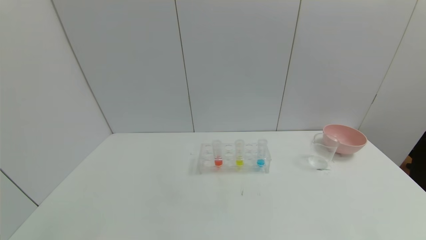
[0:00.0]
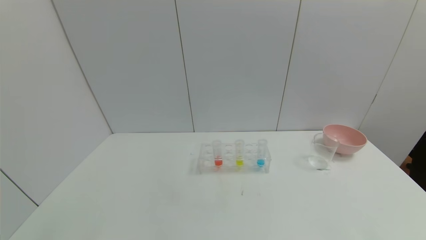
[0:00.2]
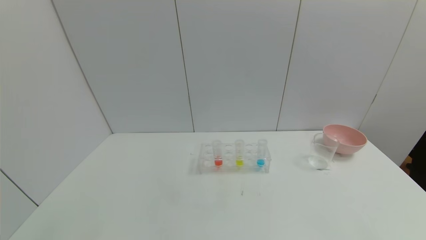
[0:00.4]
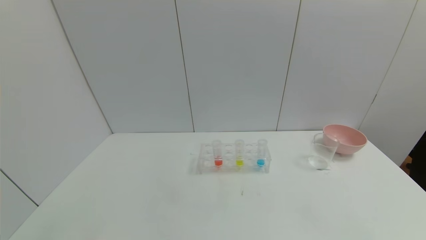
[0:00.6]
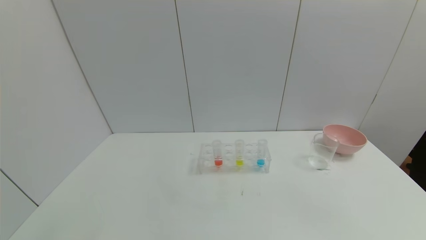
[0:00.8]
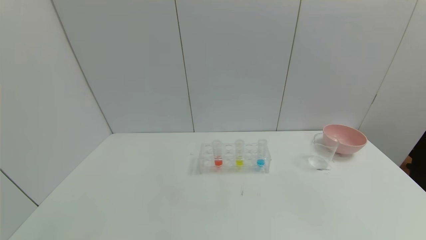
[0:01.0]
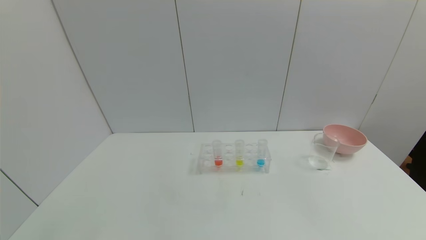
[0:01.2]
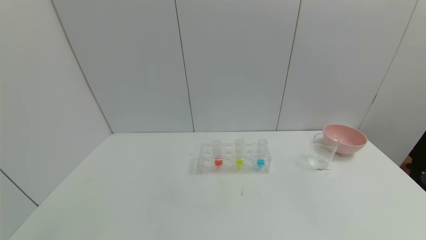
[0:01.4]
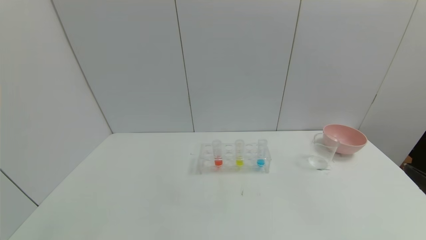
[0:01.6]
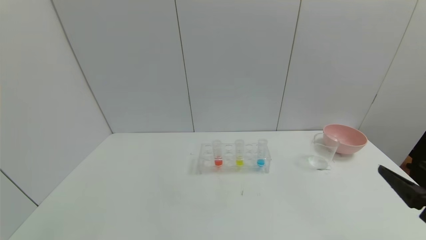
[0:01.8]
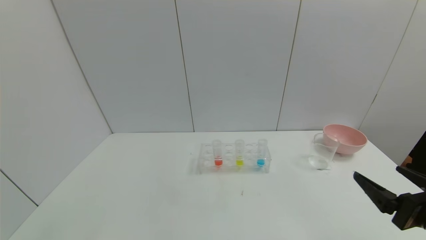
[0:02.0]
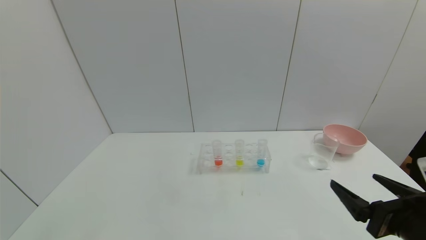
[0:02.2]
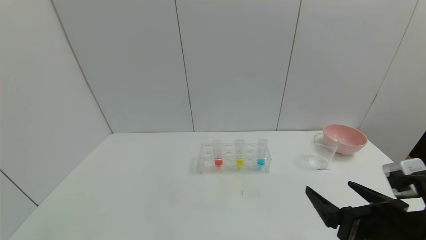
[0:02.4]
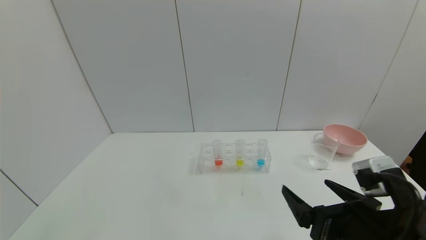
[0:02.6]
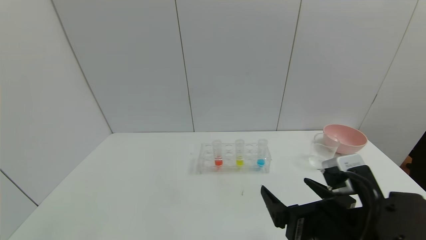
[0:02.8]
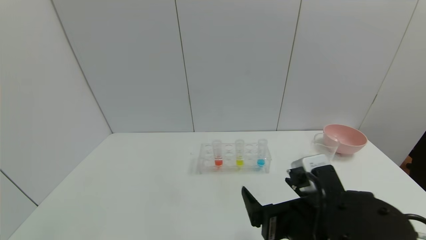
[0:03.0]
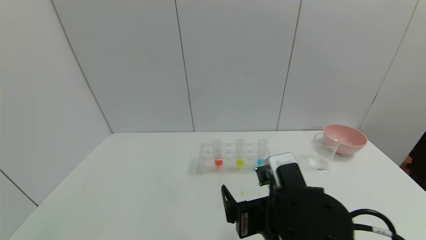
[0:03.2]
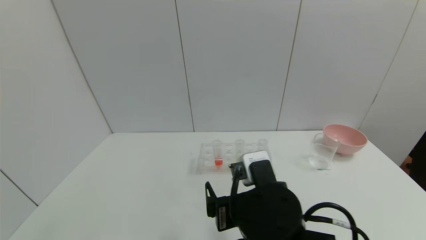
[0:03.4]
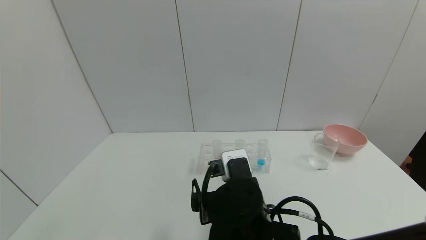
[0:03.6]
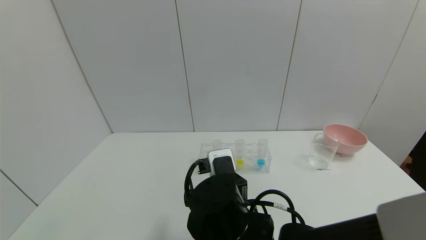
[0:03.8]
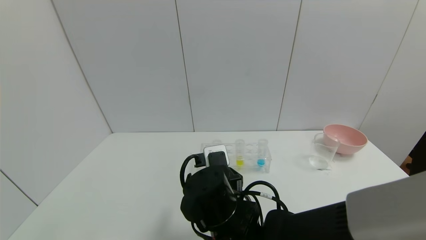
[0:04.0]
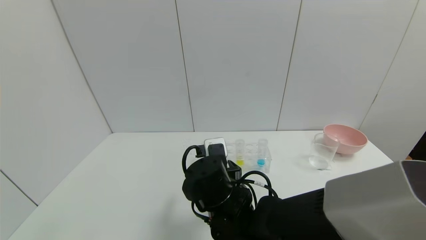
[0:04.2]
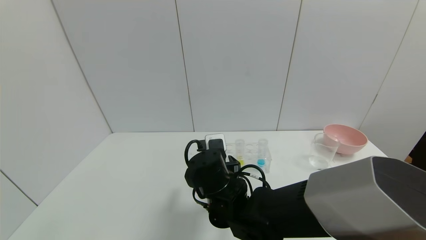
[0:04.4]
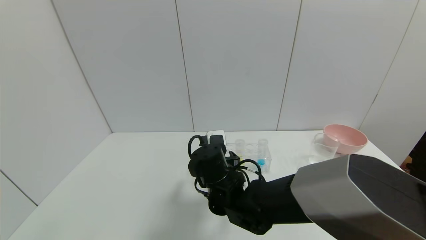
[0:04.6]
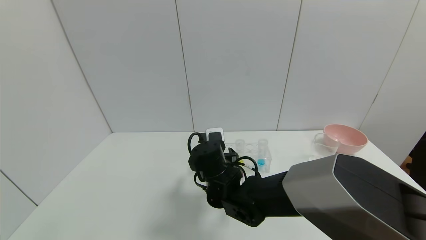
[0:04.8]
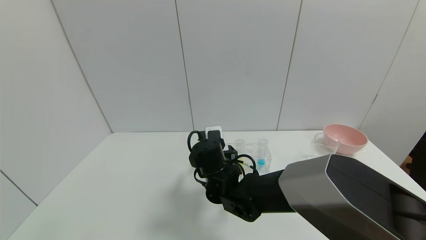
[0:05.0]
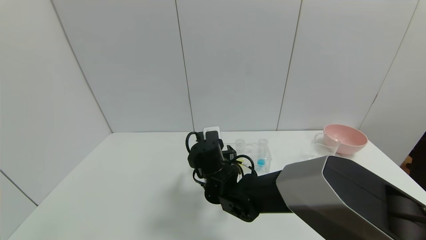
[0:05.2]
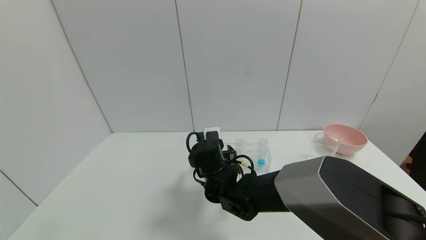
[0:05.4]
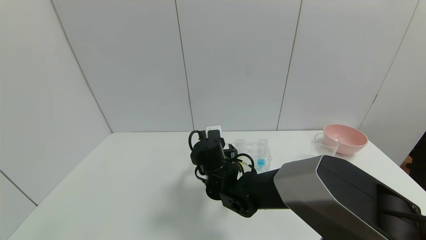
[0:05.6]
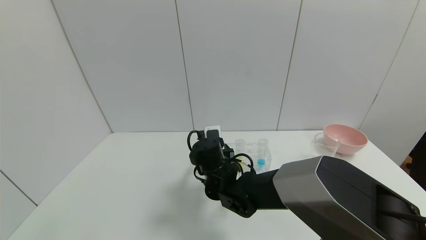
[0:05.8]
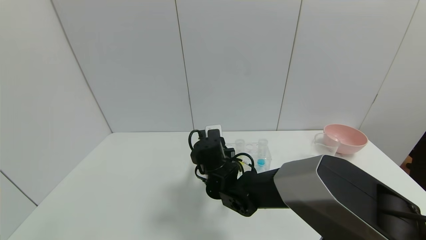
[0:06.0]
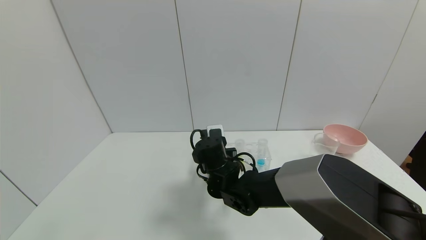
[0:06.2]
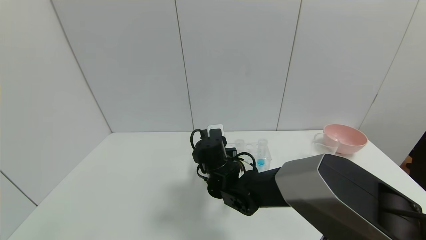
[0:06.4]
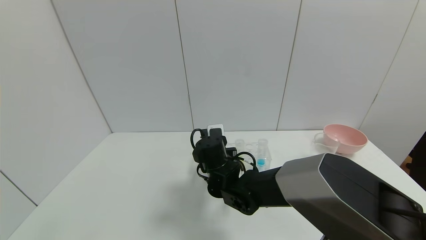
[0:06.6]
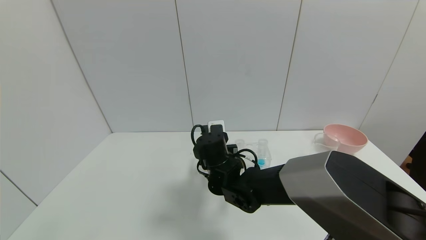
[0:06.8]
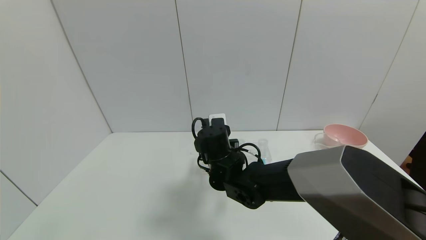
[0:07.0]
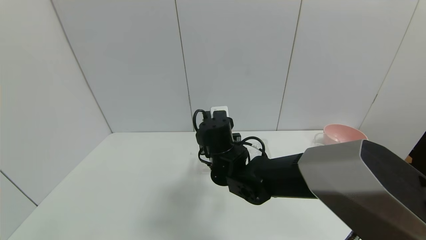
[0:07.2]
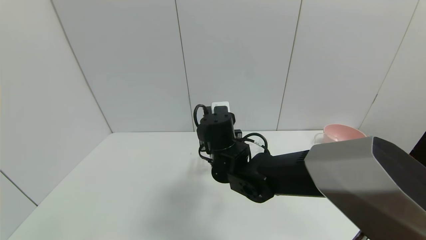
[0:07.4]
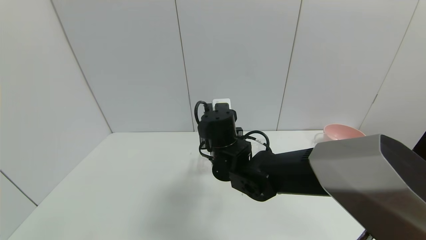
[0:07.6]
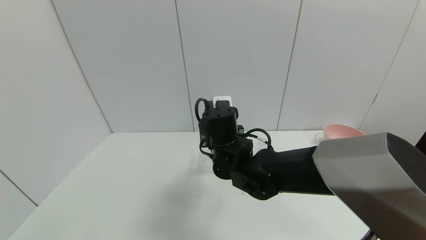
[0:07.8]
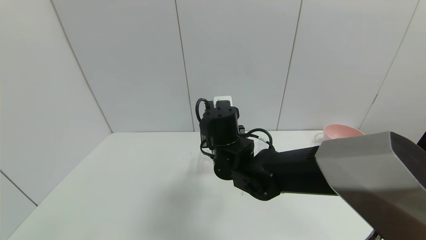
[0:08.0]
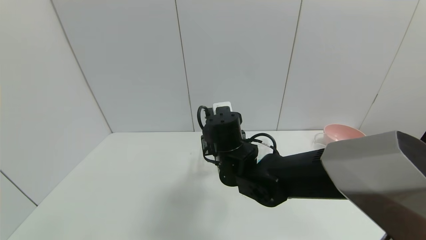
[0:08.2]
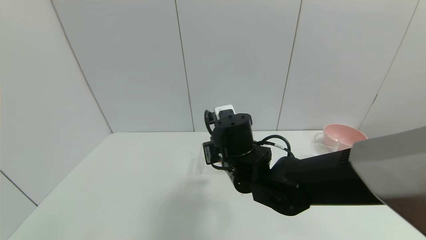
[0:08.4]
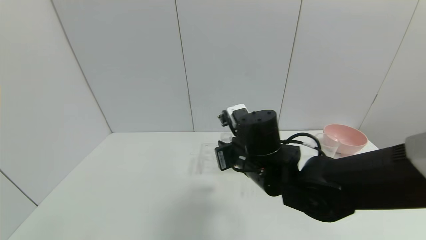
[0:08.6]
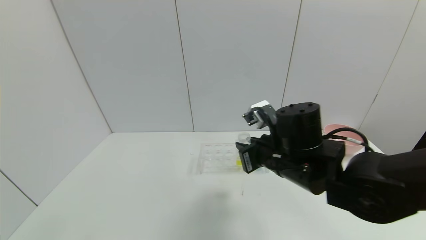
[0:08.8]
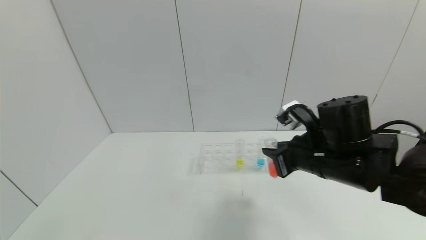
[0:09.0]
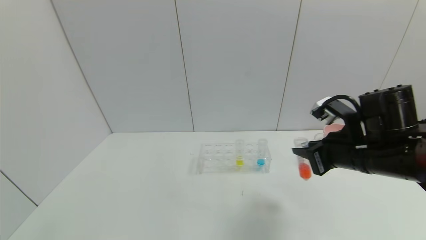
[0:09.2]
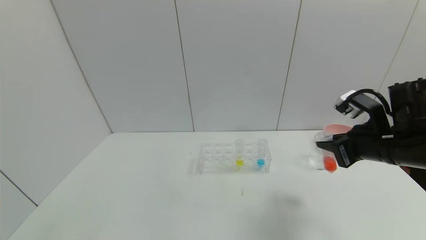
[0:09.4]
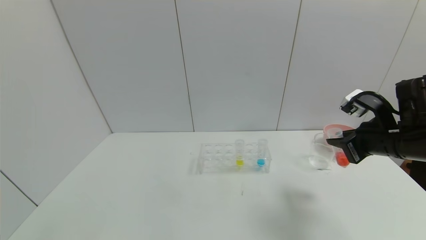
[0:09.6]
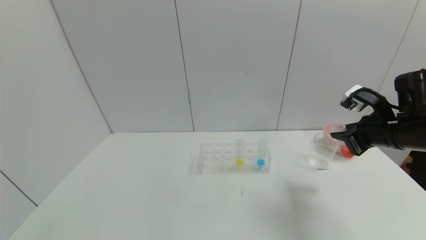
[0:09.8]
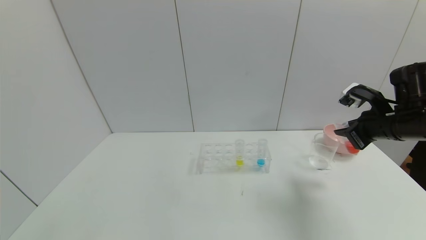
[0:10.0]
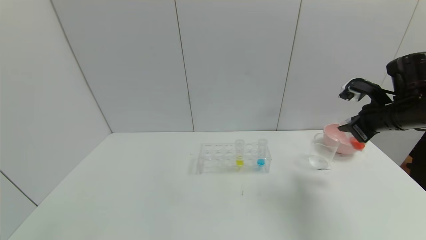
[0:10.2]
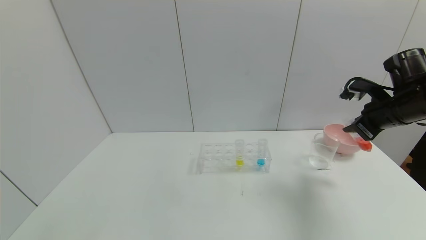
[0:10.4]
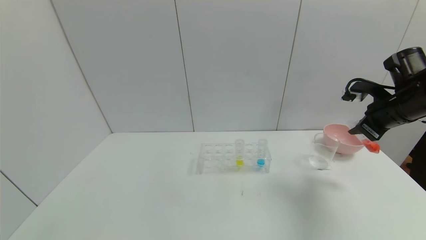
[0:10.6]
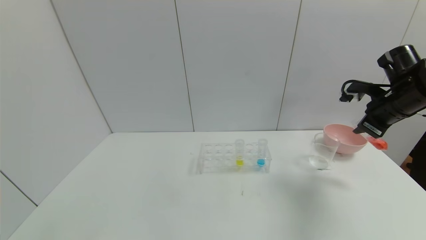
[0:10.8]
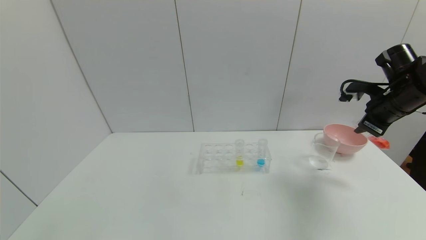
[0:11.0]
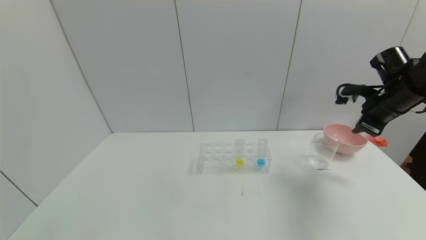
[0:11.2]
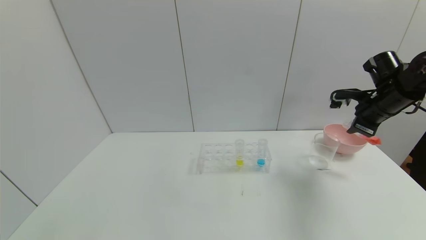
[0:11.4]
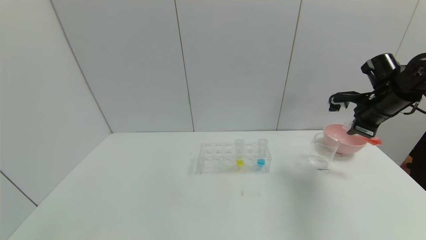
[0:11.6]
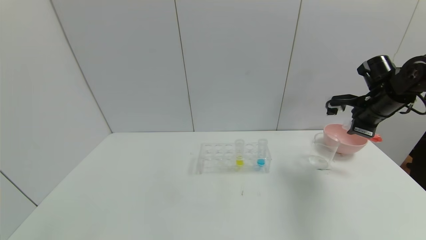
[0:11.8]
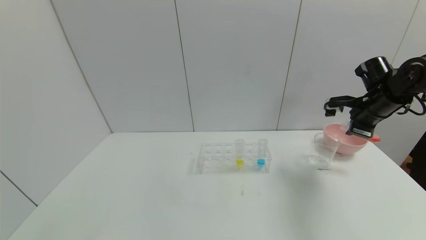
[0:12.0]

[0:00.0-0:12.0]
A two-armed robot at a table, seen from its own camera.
Task of the whole recording: pick up the test tube with red pigment and the test tube with blue pigment by grippers and pour them into the container.
Step, 0:00.0 to 0:06.4: Grasp the red reagent with the right gripper.
0:01.6 to 0:03.0: The right gripper moves to the left, about 20 cm.
0:03.0 to 0:04.4: The right gripper is displaced to the left and forward by about 20 cm.
0:04.4 to 0:06.0: The right gripper goes approximately 5 cm forward, and closes.
0:06.0 to 0:07.6: The right gripper travels upward by approximately 5 cm.
0:07.6 to 0:09.0: The right gripper moves to the right and backward, approximately 20 cm.
0:09.0 to 0:10.4: The right gripper is displaced to the right and forward by approximately 20 cm.
0:10.4 to 0:12.0: The right gripper shifts approximately 5 cm forward.

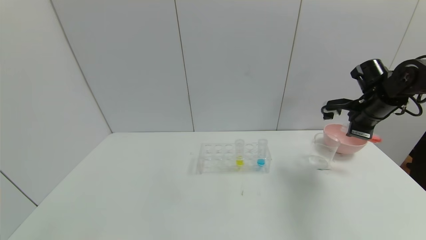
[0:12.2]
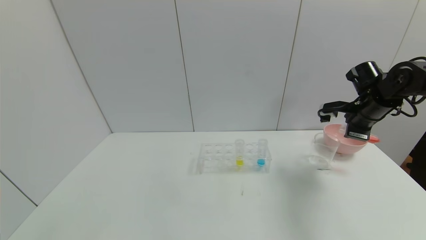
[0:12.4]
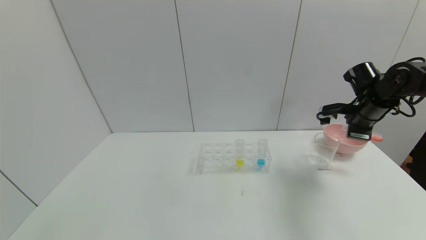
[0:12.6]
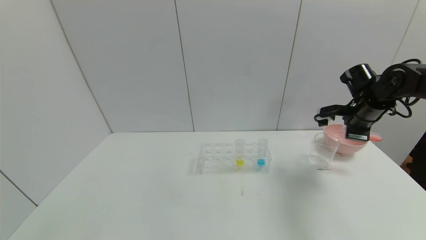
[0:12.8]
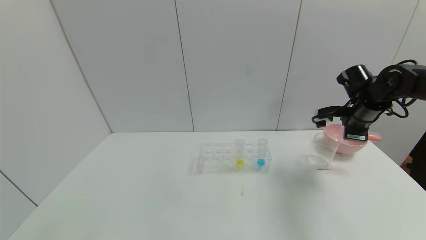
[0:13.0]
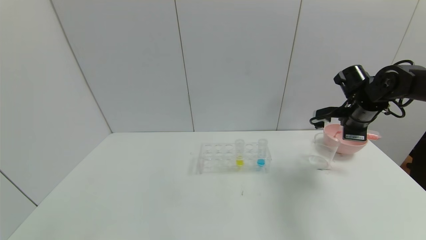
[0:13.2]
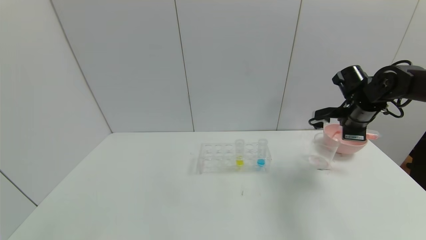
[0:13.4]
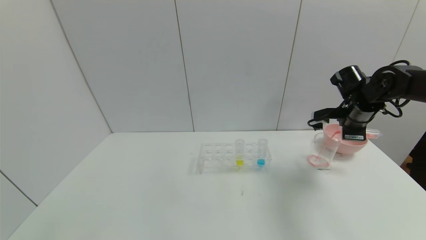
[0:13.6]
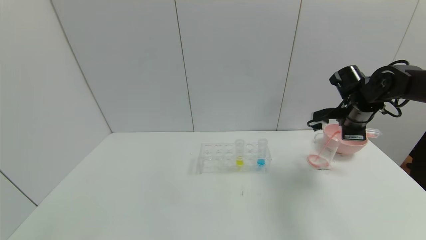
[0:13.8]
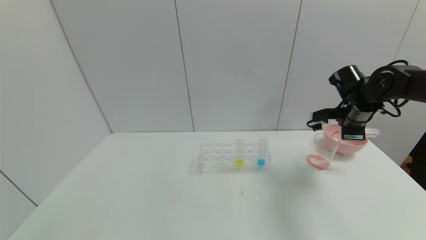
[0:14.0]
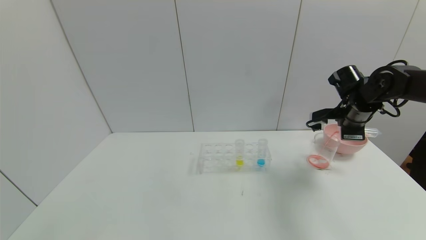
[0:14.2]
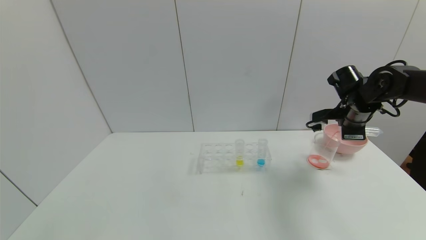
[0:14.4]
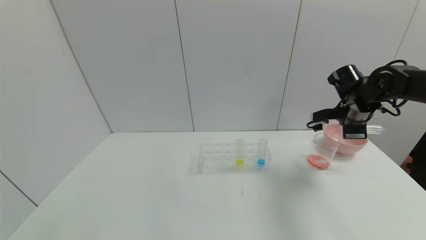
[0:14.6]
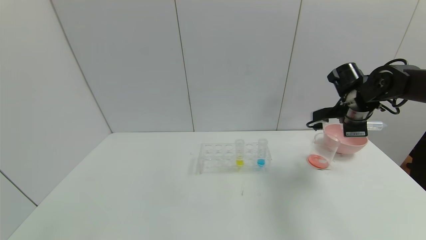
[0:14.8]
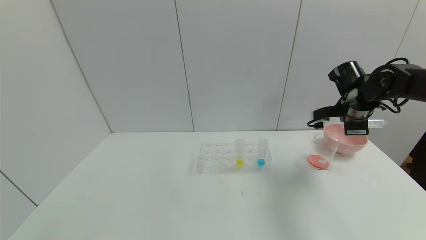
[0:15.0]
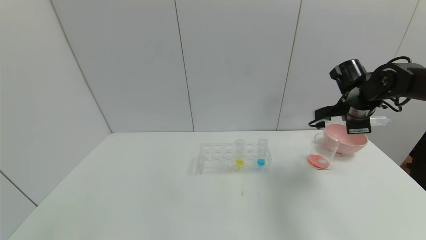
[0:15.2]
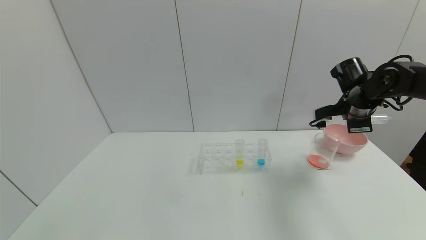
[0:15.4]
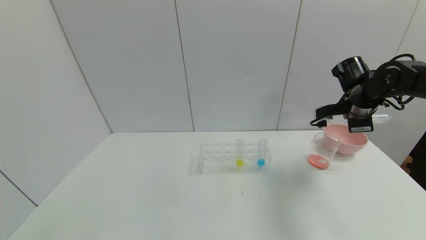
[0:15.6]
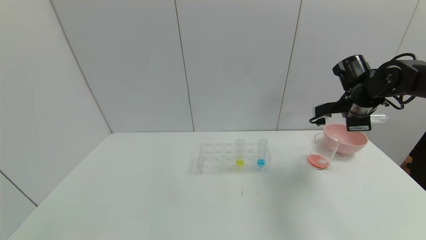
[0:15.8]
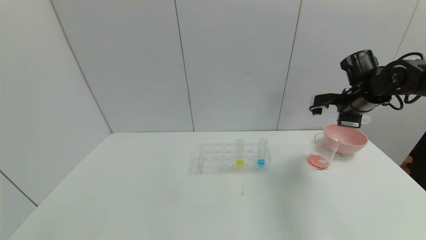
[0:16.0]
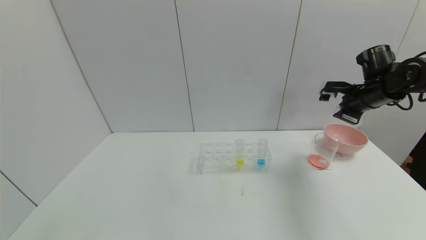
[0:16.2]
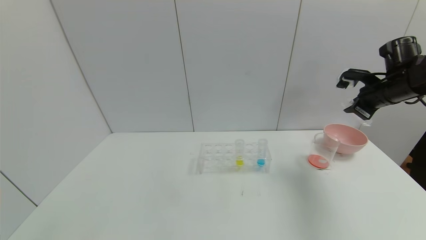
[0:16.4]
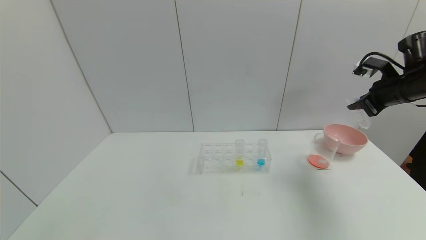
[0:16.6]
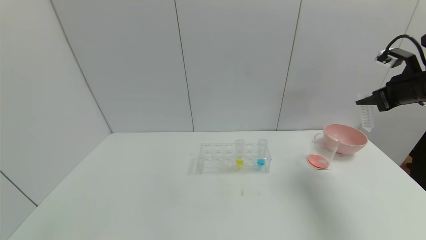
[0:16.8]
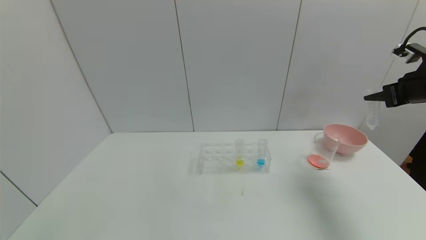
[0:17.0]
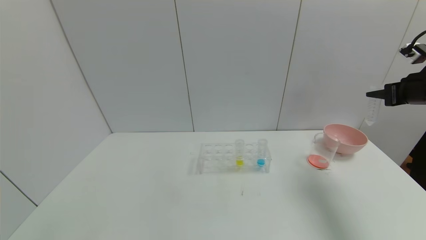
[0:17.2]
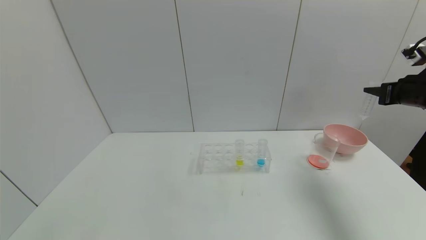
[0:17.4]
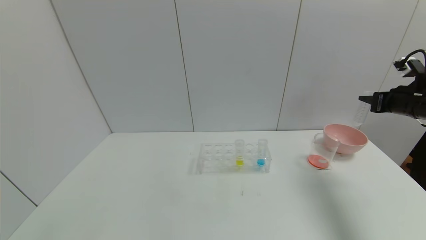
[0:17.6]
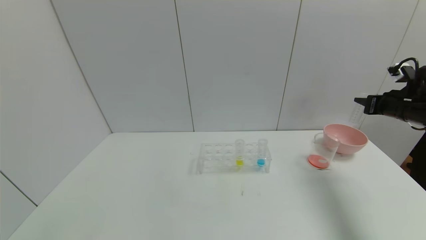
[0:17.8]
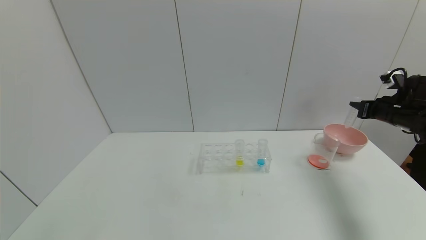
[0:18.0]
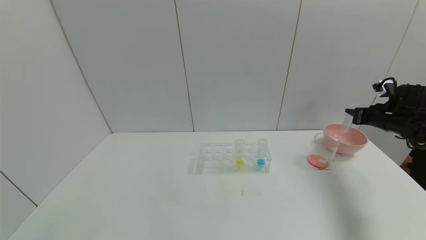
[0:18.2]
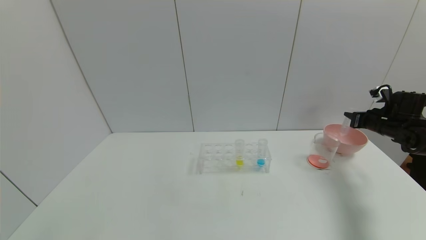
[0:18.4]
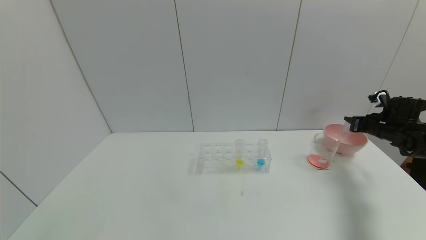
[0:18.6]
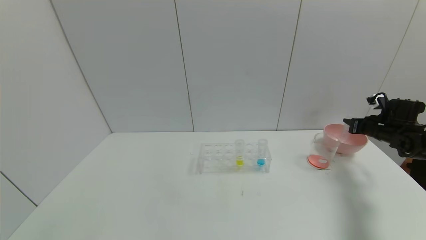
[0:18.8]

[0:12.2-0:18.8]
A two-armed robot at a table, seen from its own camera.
Task of the whole recording: pick up the test tube with red pigment and the test tube with blue pigment by grippers and pour them into the container.
Step, 0:12.2 to 0:14.8: Pour the red reagent into the graduated cylinder with the right gripper.
0:12.2 to 0:13.8: The grippers move only a little.
0:13.8 to 0:15.4: There are only small adjustments of the grippers.
0:15.4 to 0:17.2: The right gripper heads to the right, backward and upward, covering roughly 15 cm.
0:17.2 to 0:18.8: The right gripper shifts about 20 cm downward and forward.
